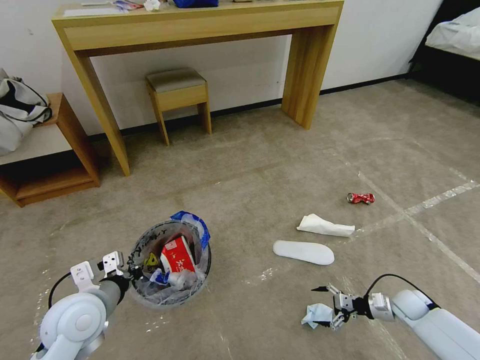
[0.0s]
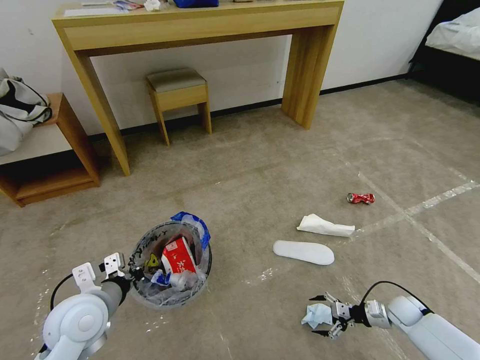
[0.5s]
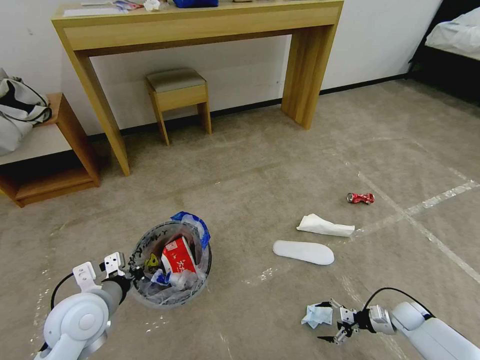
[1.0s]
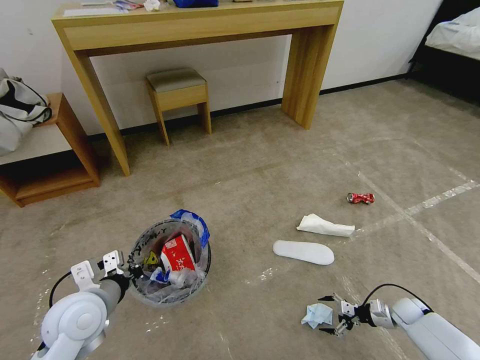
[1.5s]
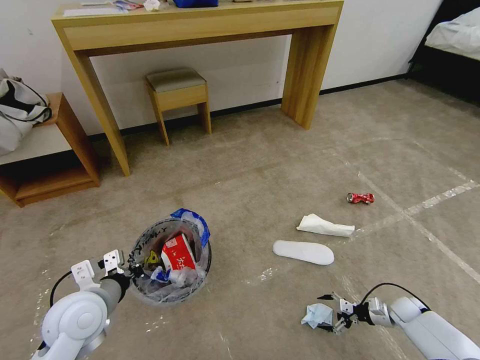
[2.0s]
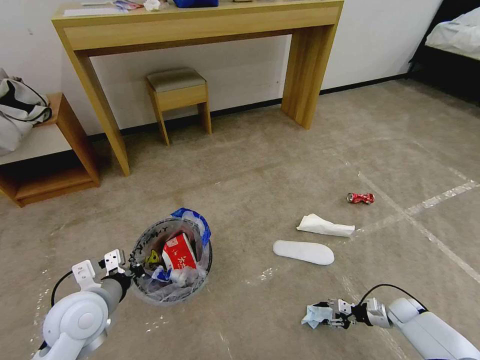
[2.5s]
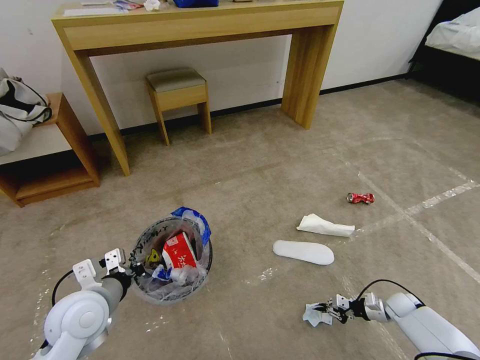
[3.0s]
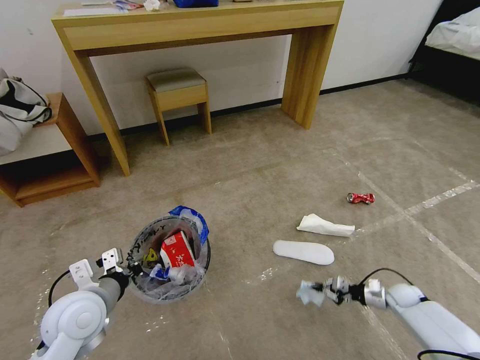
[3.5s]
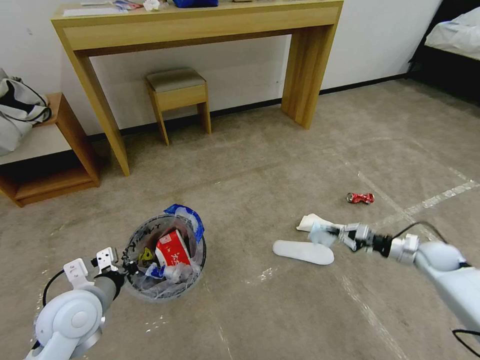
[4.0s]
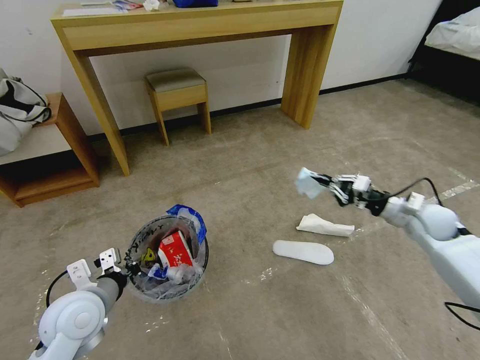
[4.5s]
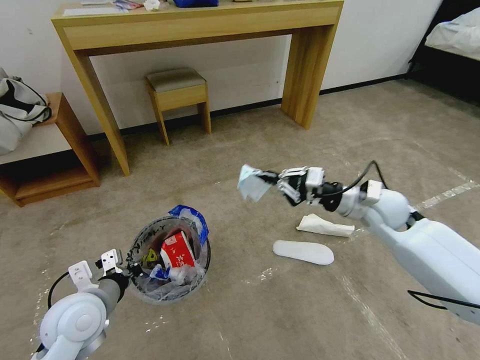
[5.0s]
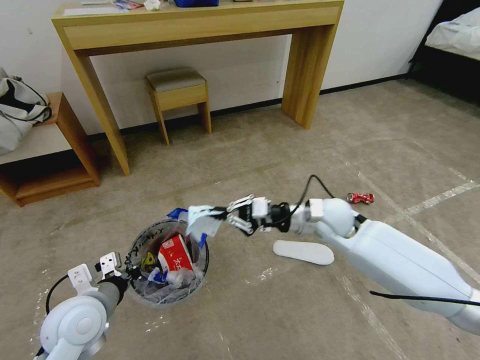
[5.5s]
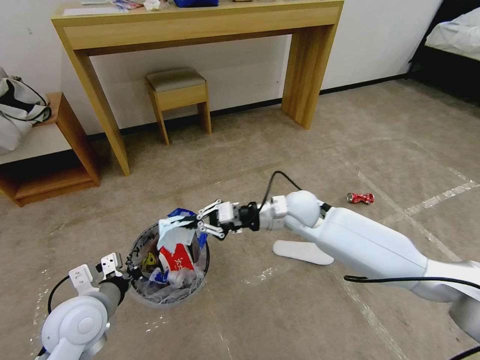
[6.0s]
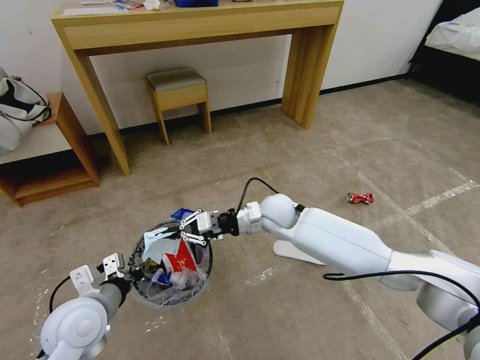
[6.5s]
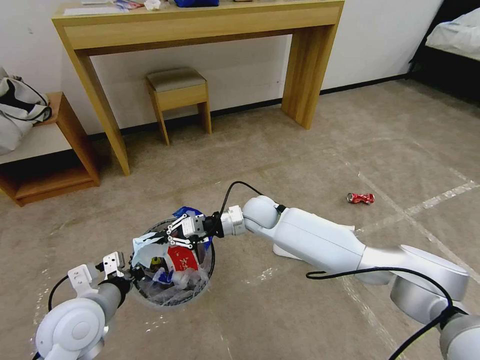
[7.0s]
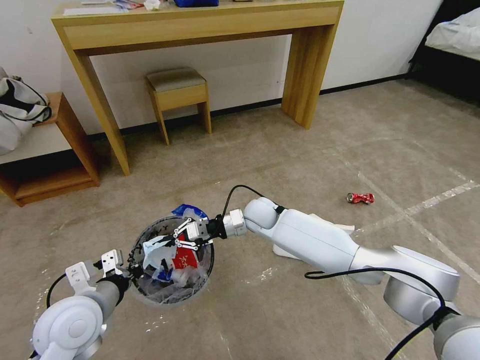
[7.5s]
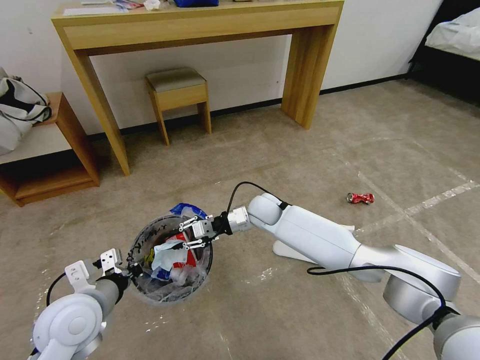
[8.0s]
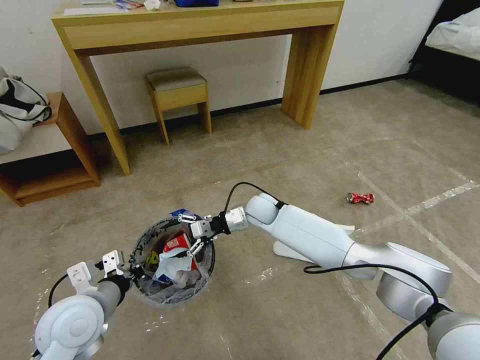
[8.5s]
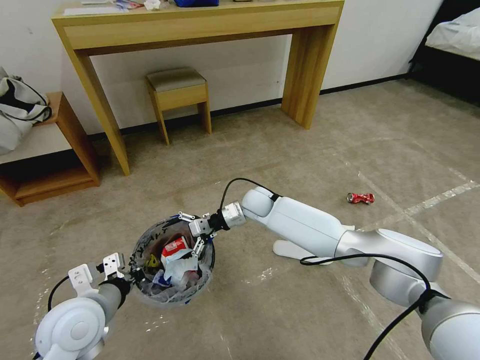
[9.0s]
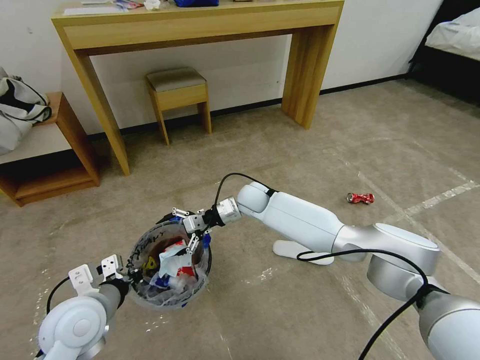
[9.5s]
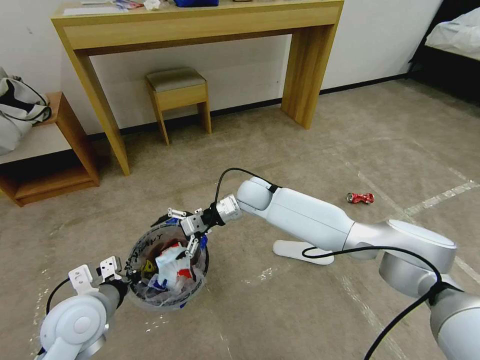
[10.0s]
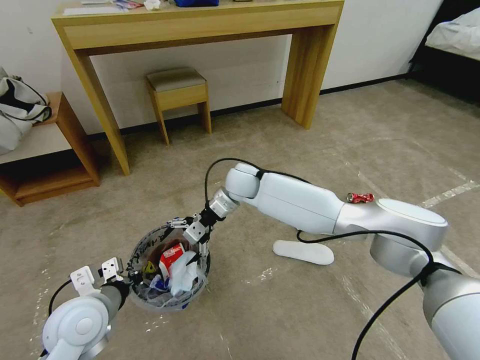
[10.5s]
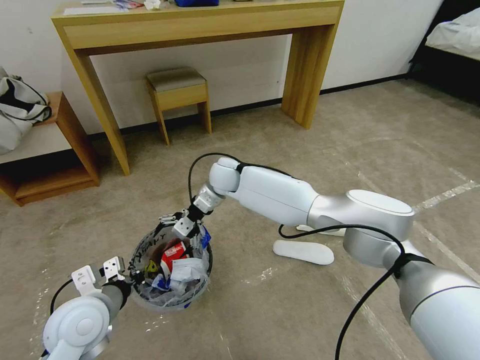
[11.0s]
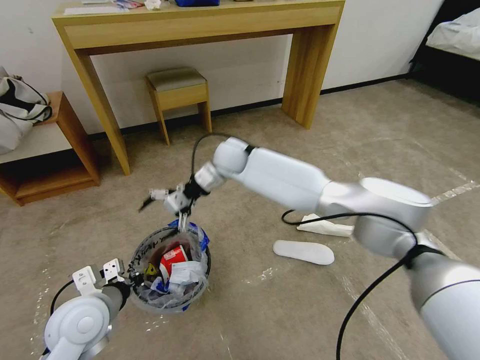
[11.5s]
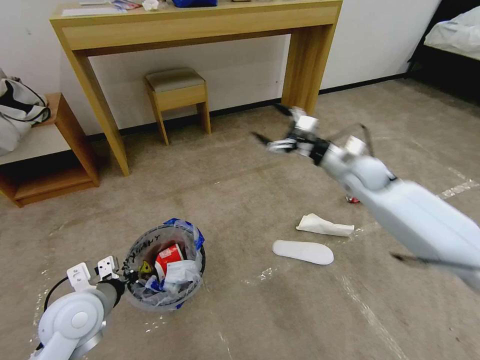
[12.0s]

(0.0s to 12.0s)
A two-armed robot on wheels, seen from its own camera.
Task of the whole recording: Pick up the trash bin and place the garbage on the floor into it.
0.0s - 2.0s: The right gripper moves downward, some 5 cm.
2.0s - 4.0s: The right gripper shifts some 20 cm upward and forward, and closes up.
4.0s - 6.0s: The right gripper heads to the left and upward, covering about 40 cm.
6.0s - 8.0s: The right gripper is displaced downward, to the left and forward by roughly 10 cm.
8.0s - 10.0s: The right gripper shifts about 5 cm upward, and opens.
10.0s - 12.0s: The right gripper travels to the right and upward by about 25 cm.

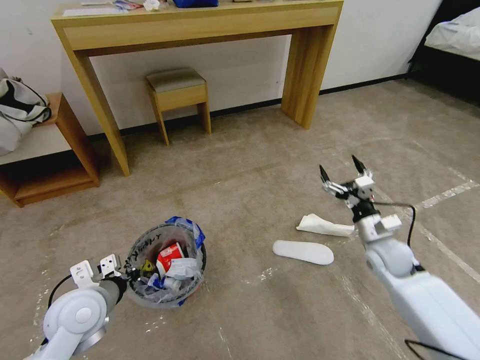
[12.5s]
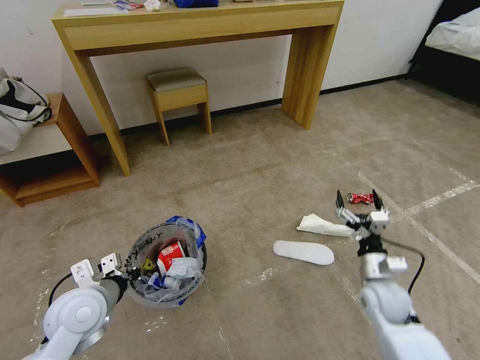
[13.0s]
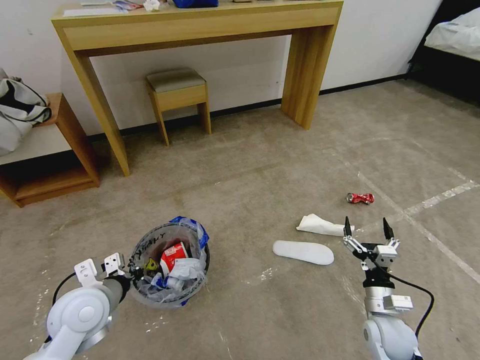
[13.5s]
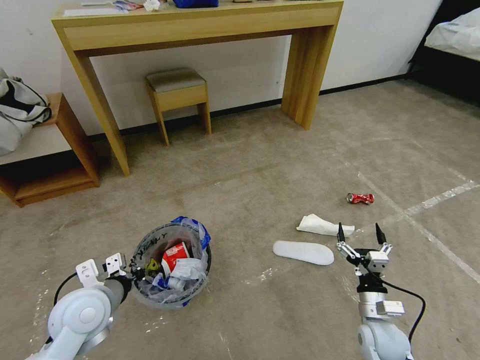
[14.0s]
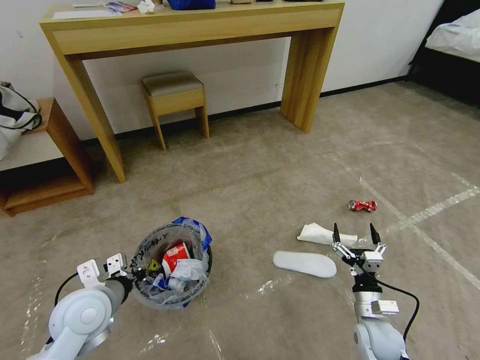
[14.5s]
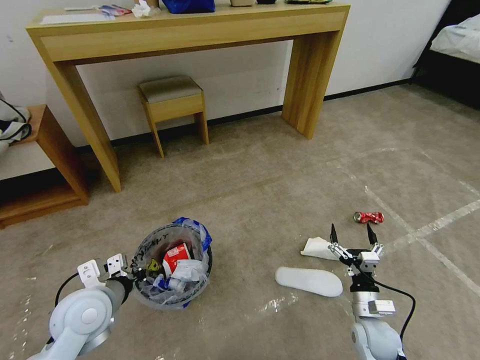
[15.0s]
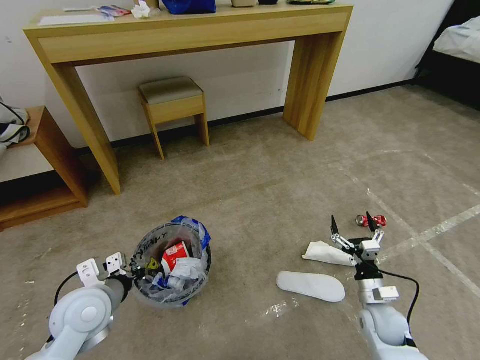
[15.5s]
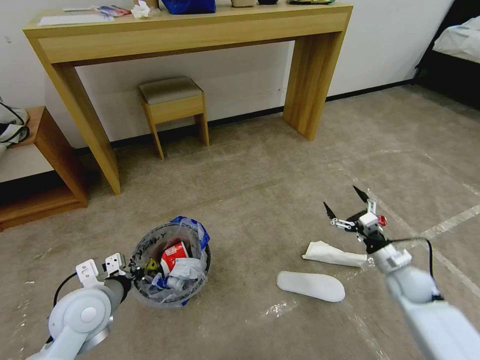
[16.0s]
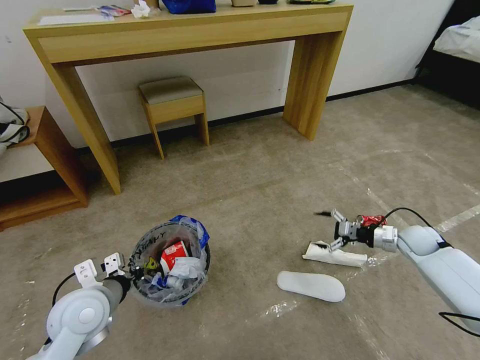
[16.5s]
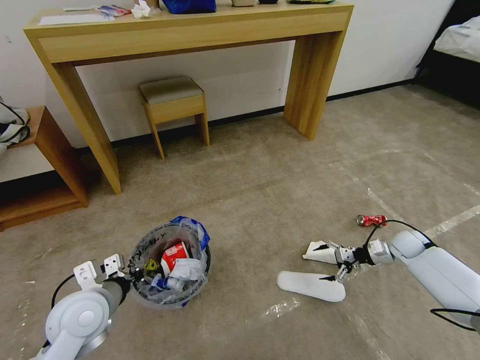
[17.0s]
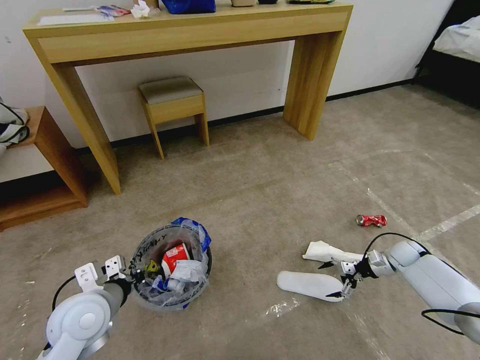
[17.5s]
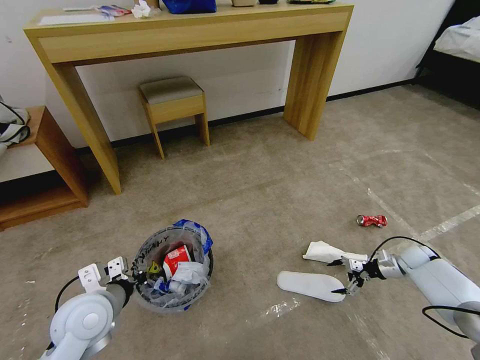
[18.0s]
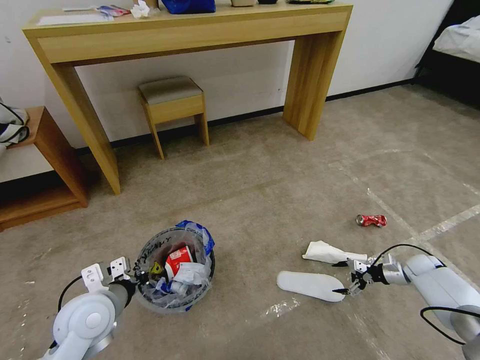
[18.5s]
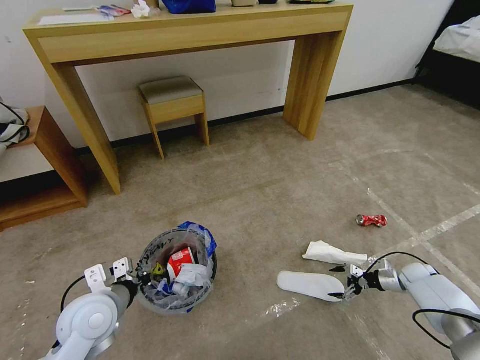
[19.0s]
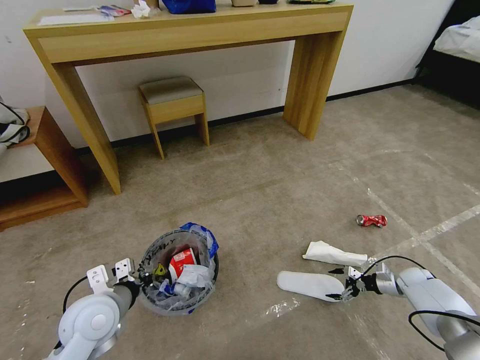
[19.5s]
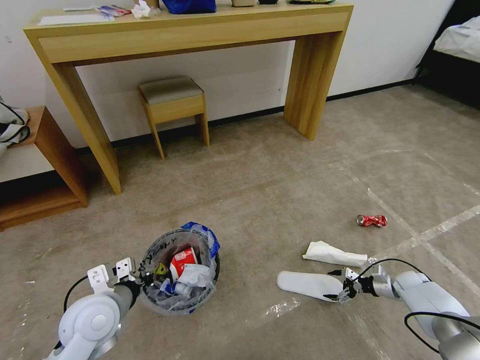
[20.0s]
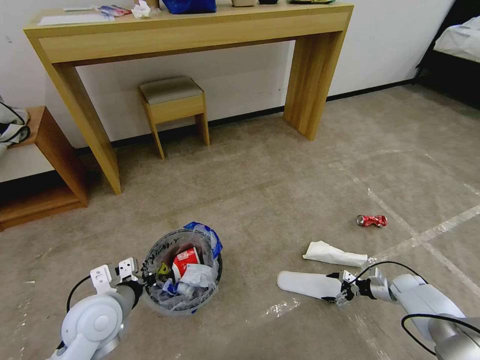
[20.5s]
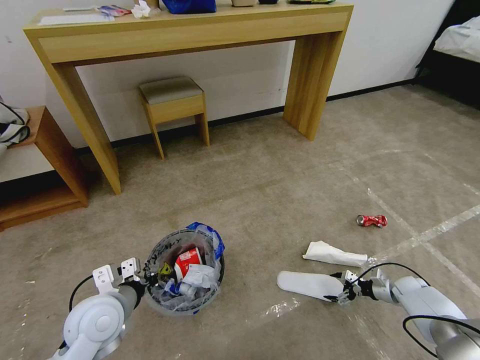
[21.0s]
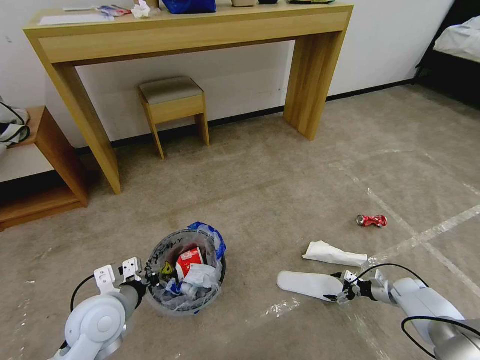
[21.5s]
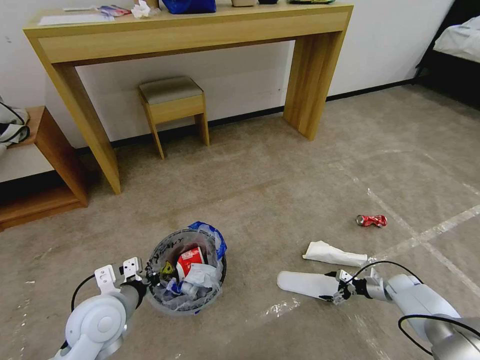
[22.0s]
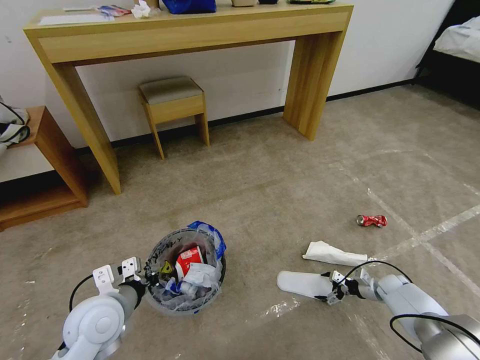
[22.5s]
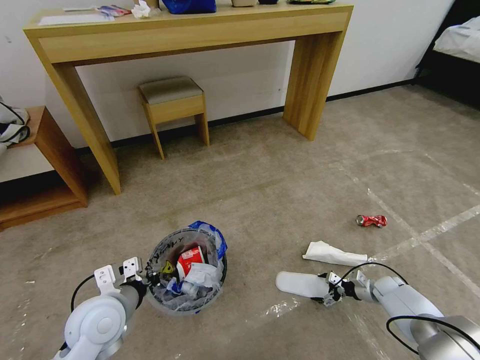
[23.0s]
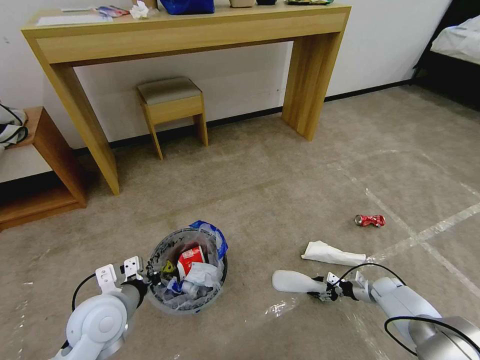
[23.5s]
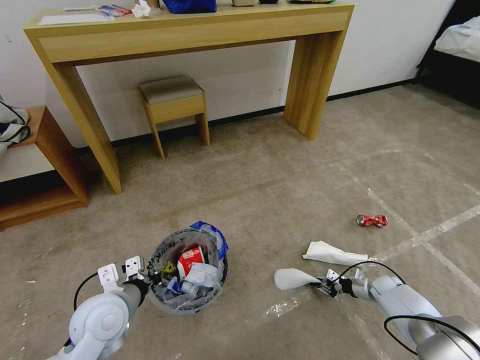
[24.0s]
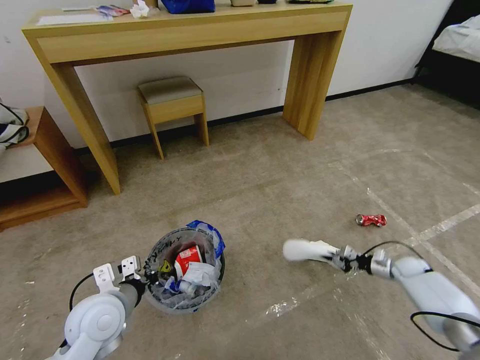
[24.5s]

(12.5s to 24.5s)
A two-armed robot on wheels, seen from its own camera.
Task of the whole recording: Pick up the trash bin and place the garbage on the floor into it.
12.5s - 14.5s: The right gripper goes approximately 20 cm backward and downward.
14.5s - 16.5s: The right gripper travels forward, to the right and upward by approximately 30 cm.
16.5s - 18.5s: The right gripper is displaced downward and to the right by some 15 cm.
18.5s - 20.5s: The right gripper travels downward by some 5 cm.
20.5s - 22.5s: The grippers stay close to where they were, moving slightly.
22.5s - 24.5s: The right gripper goes approximately 5 cm upward, and closes up.

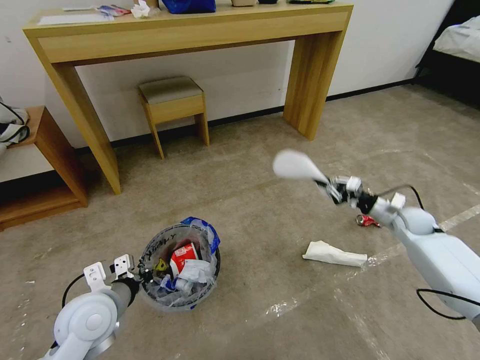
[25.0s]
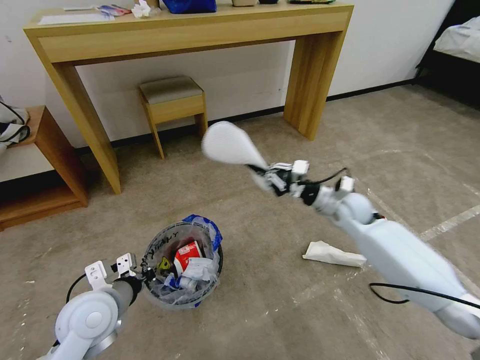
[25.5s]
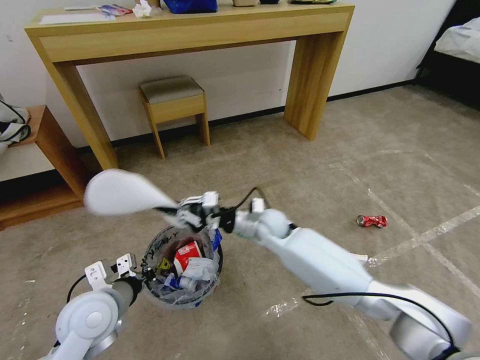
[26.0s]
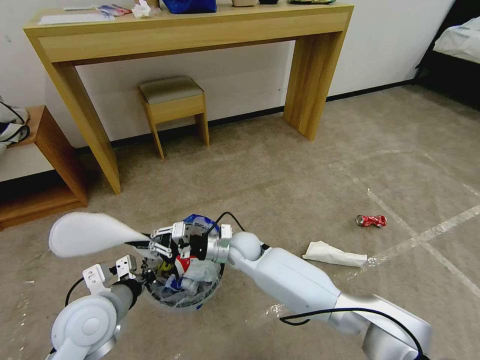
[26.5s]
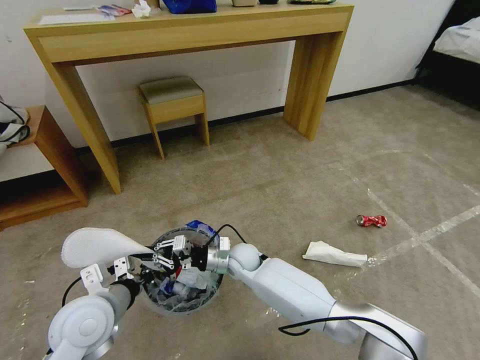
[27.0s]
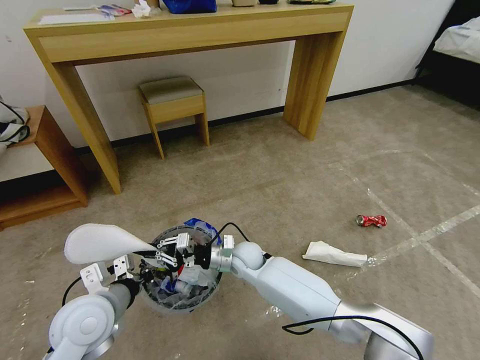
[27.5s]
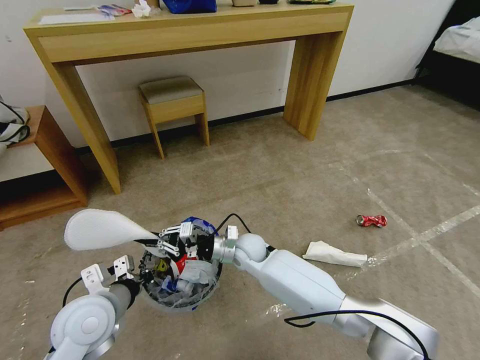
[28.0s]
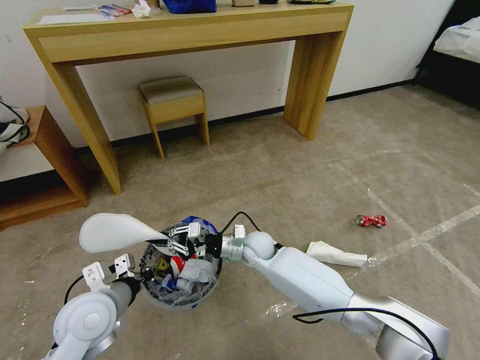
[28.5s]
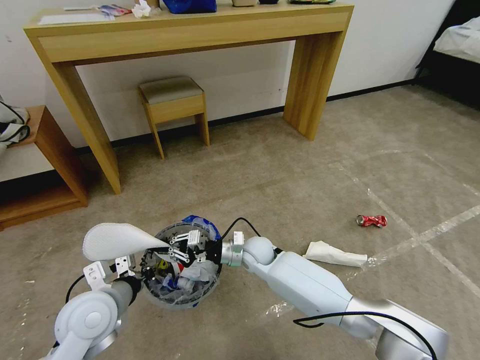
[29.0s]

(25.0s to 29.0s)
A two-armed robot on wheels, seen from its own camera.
Task of the whole recording: Pick up the trash bin and place the garbage on the floor into it.
25.0s - 27.0s: The right gripper moves to the left, roughly 40 cm.
27.0s - 29.0s: The grippers stay close to where they were, moving slightly.
